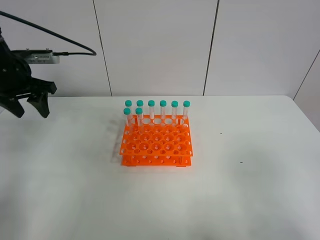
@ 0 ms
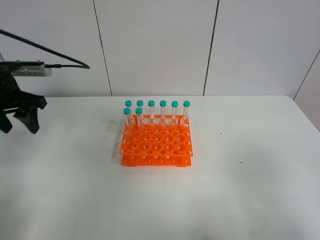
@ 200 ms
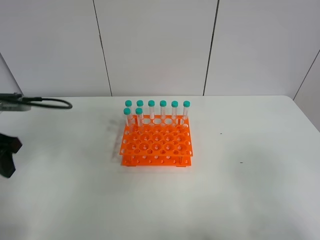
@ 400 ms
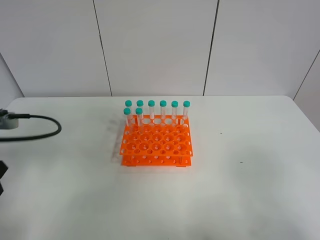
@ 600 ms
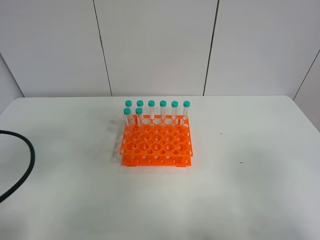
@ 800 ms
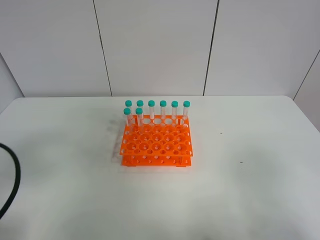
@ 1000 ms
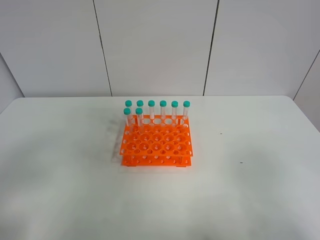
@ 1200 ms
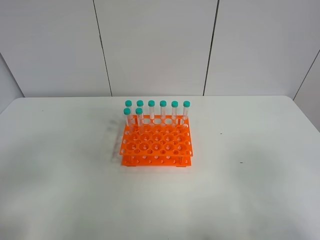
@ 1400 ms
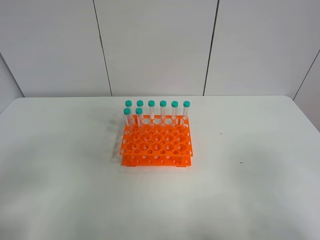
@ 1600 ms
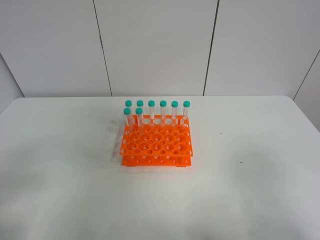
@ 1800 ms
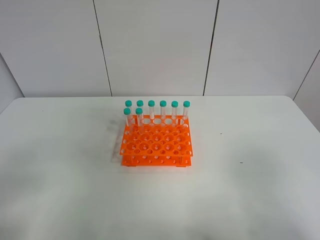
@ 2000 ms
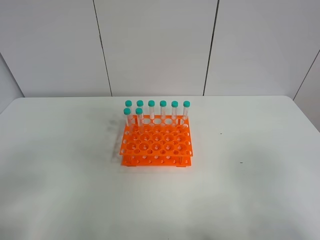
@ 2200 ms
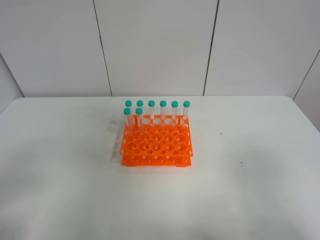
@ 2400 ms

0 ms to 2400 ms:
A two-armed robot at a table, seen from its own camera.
Task of the whole recording: Put the test tube on the table back onto the test tube rack.
0 ms to 1200 ms: The left gripper heads backward, covering approximately 30 cm.
